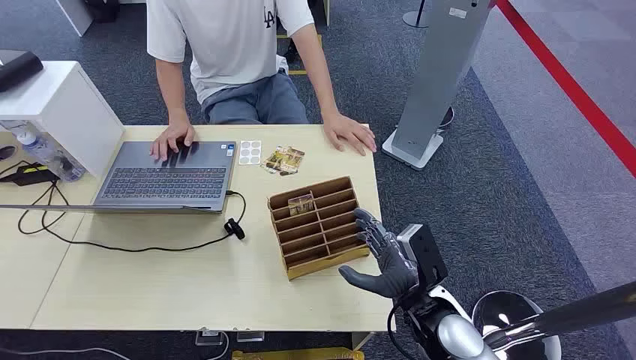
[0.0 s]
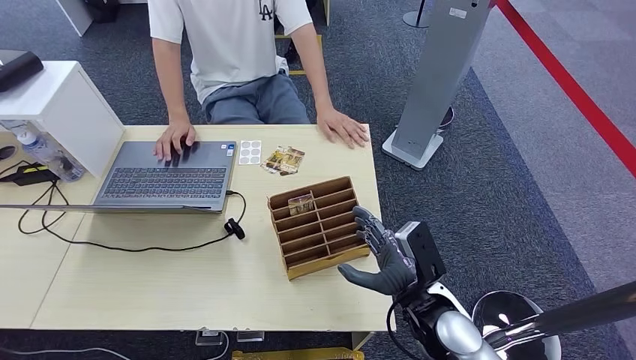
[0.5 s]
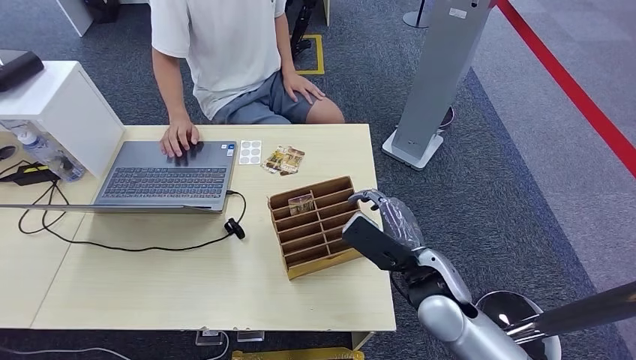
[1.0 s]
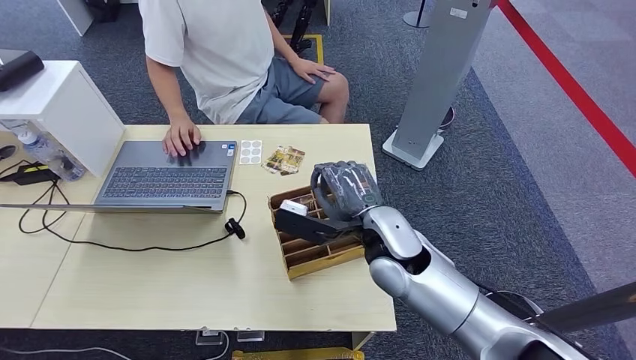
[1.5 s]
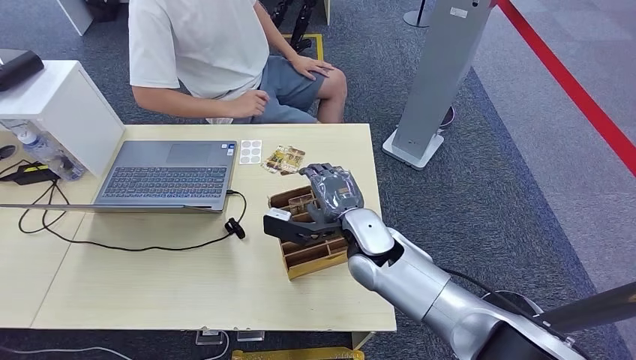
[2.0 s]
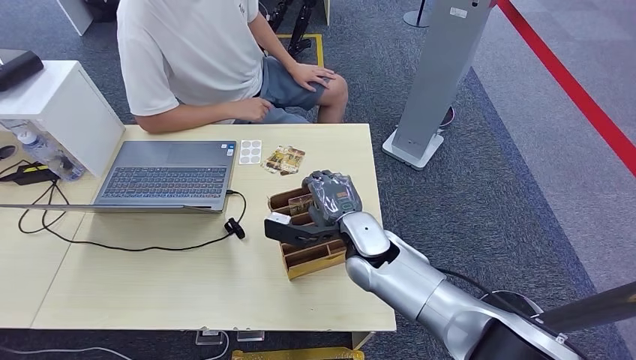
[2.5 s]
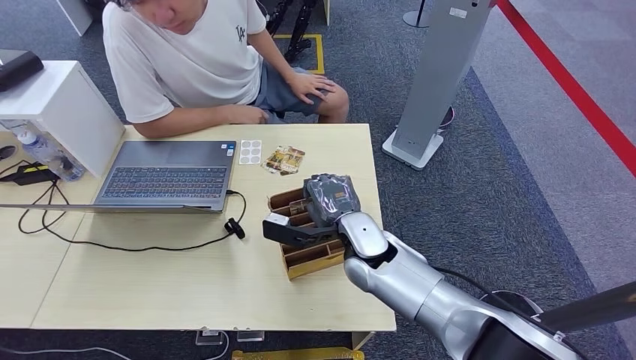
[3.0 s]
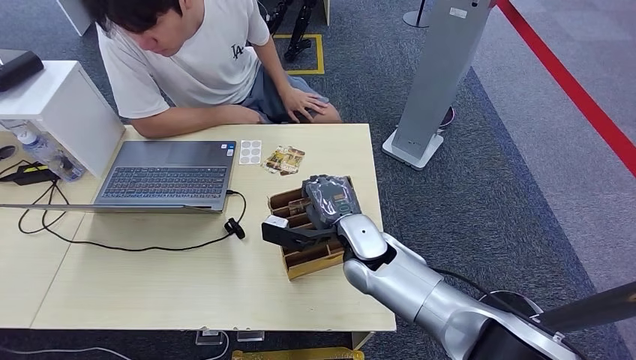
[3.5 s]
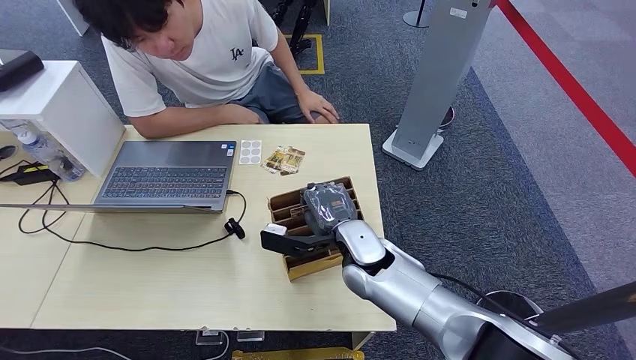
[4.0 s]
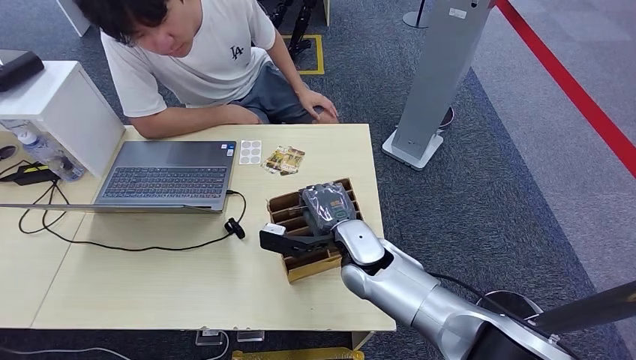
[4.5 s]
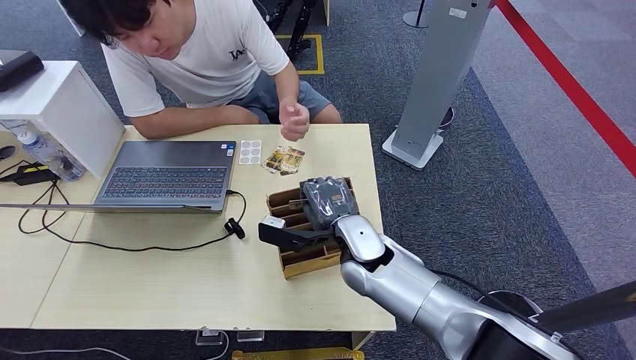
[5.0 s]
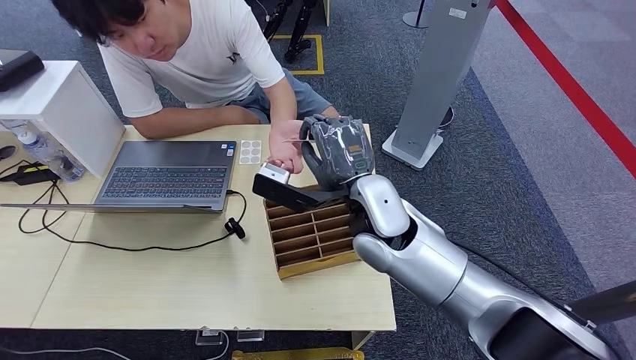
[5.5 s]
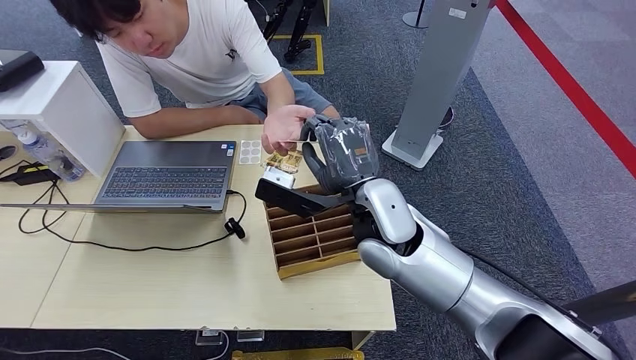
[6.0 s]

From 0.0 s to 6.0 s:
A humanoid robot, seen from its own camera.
Step, from 0.0 s to 5.0 s: Pick up the key card from the card box.
Step, from 5.5 s to 6.0 s: Hand the key card to the target.
From 2.0 s to 4.0 s: There are only small adjustments of the hands.
